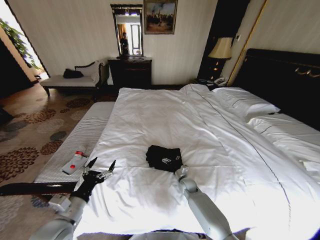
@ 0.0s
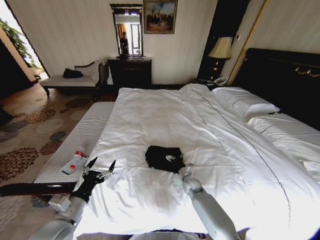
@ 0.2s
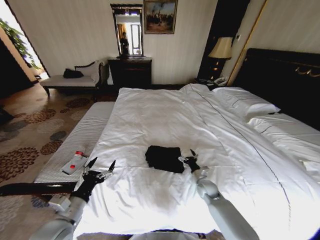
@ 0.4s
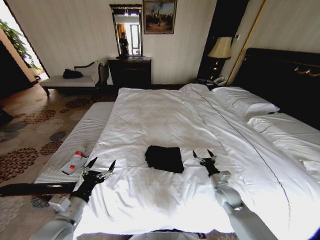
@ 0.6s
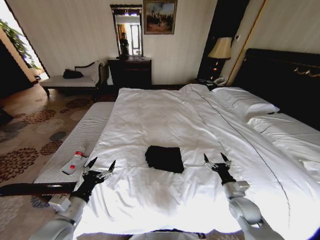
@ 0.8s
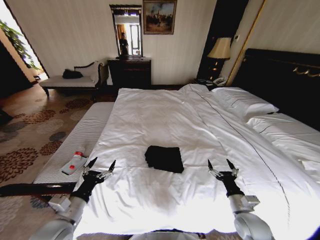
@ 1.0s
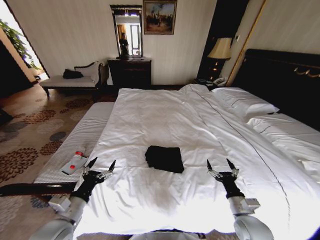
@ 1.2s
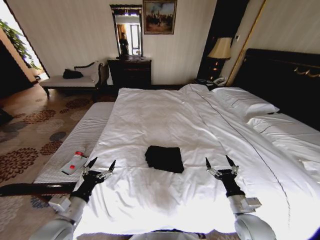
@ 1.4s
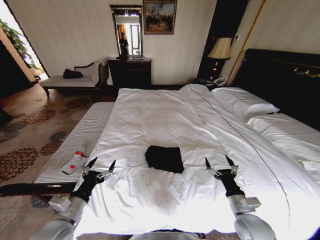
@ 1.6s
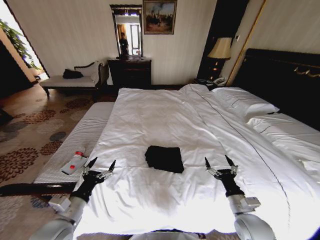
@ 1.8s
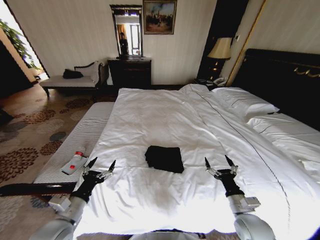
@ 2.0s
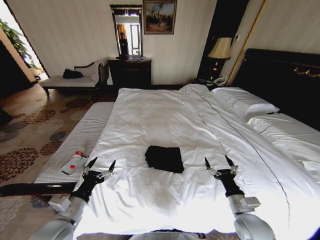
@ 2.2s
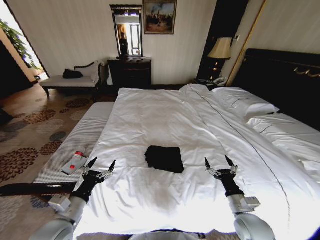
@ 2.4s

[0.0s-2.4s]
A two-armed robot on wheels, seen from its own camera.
Task of the whole recording: Fold the clothes on the bed.
0.0s to 1.2s: The right gripper goes about 30 cm backward, to the right and upward.
1.2s to 2.4s: There are only small adjustments of the grippers.

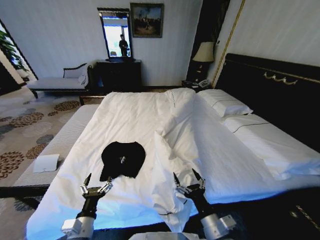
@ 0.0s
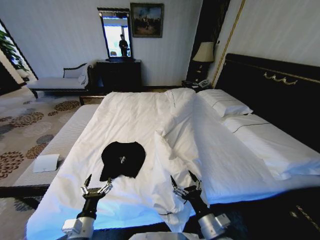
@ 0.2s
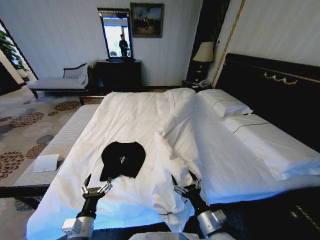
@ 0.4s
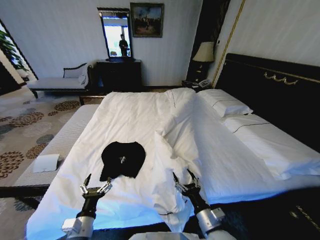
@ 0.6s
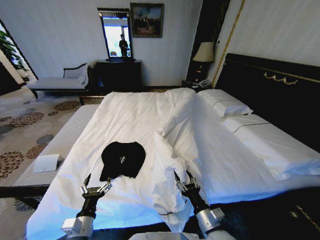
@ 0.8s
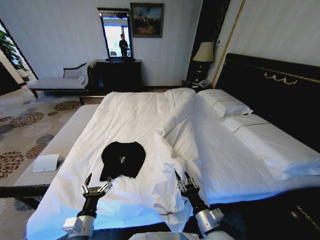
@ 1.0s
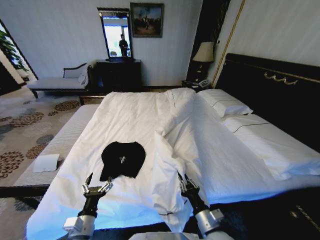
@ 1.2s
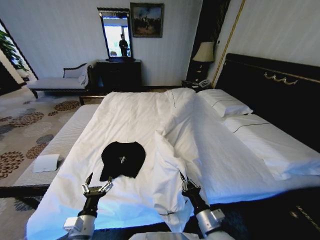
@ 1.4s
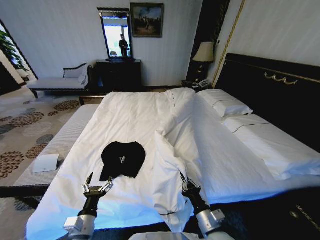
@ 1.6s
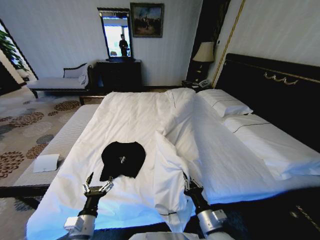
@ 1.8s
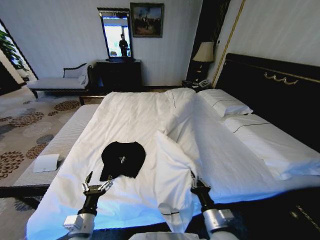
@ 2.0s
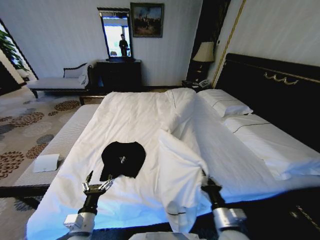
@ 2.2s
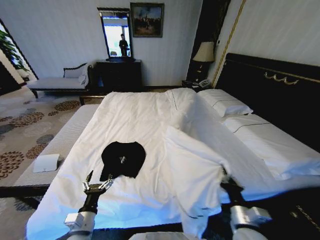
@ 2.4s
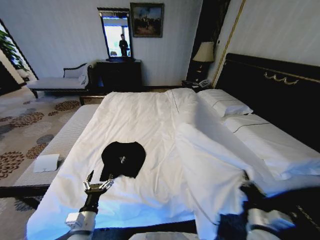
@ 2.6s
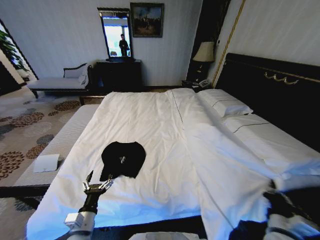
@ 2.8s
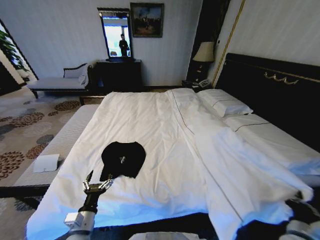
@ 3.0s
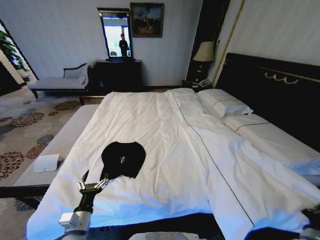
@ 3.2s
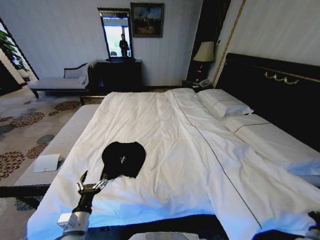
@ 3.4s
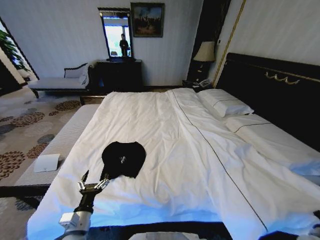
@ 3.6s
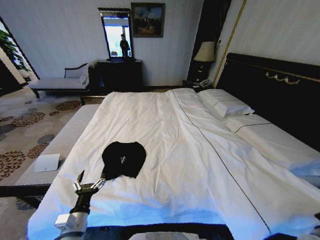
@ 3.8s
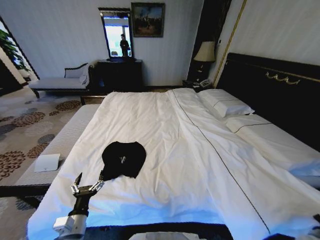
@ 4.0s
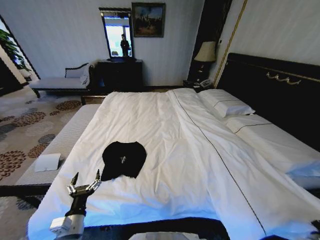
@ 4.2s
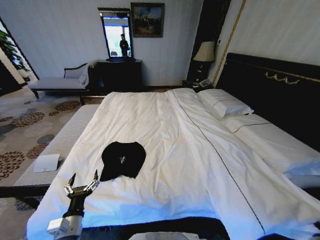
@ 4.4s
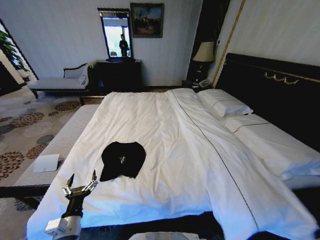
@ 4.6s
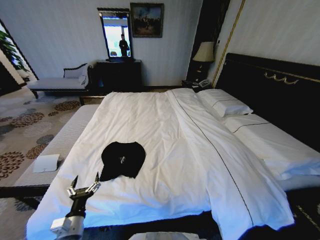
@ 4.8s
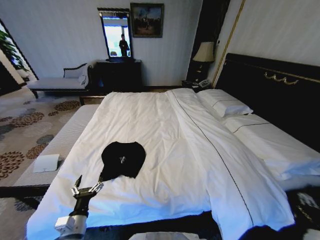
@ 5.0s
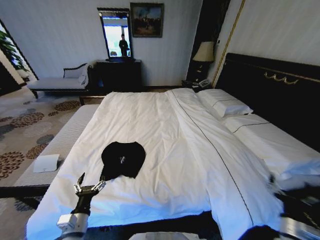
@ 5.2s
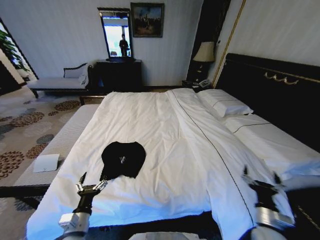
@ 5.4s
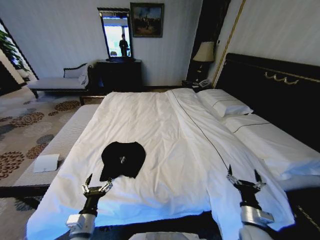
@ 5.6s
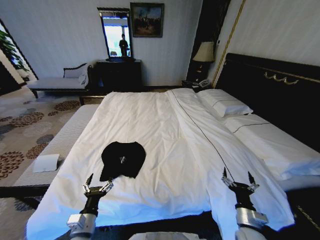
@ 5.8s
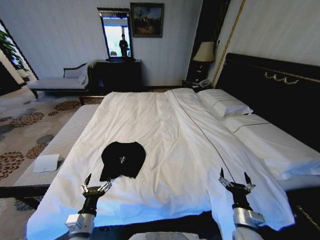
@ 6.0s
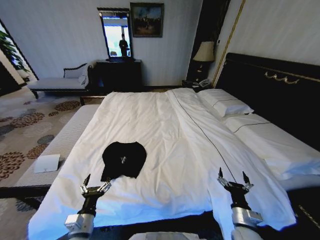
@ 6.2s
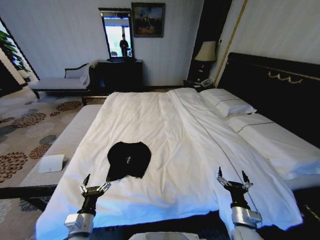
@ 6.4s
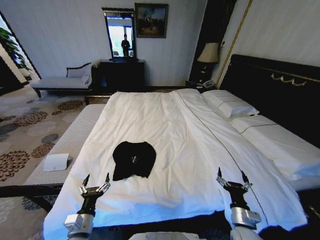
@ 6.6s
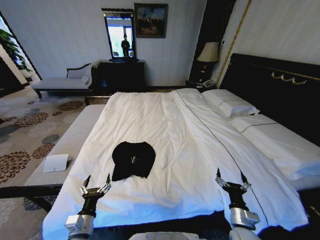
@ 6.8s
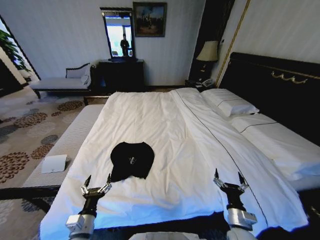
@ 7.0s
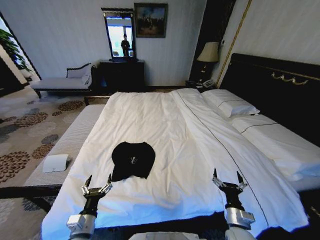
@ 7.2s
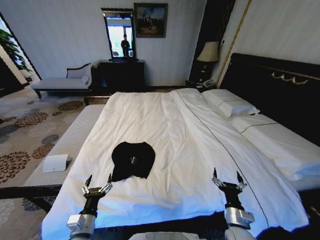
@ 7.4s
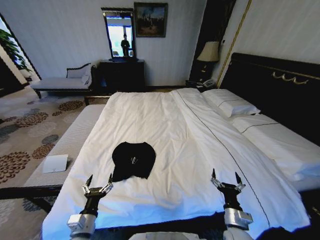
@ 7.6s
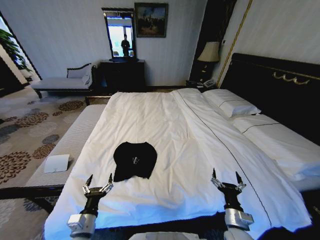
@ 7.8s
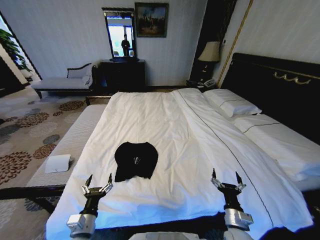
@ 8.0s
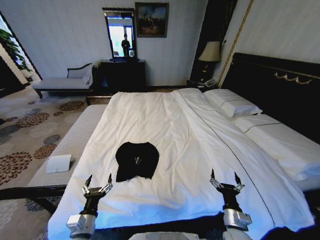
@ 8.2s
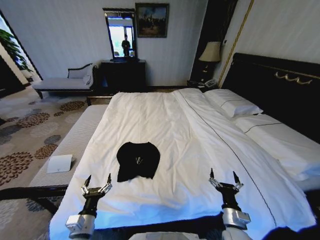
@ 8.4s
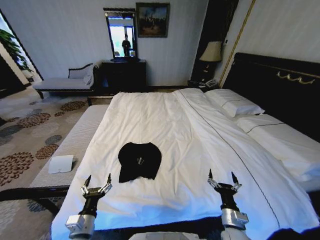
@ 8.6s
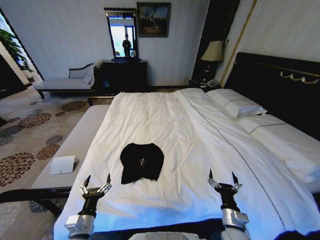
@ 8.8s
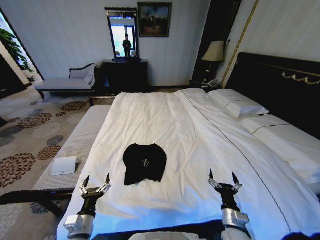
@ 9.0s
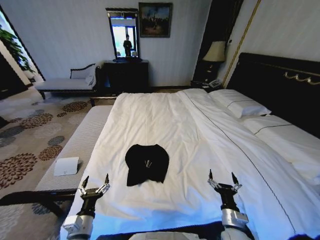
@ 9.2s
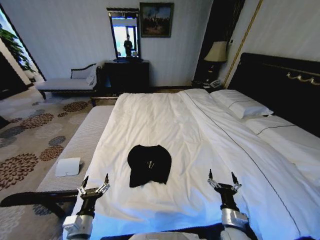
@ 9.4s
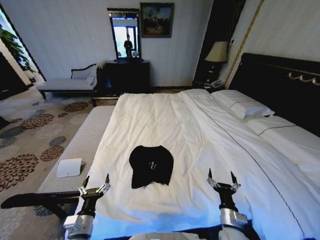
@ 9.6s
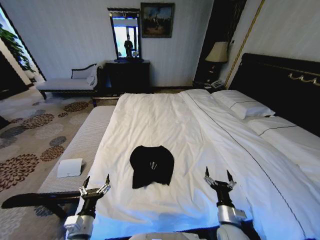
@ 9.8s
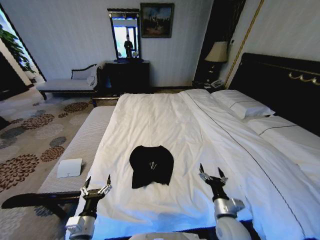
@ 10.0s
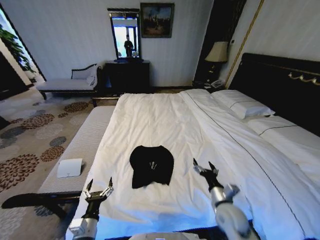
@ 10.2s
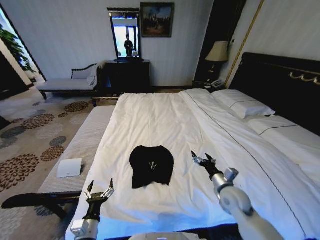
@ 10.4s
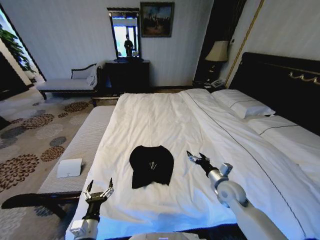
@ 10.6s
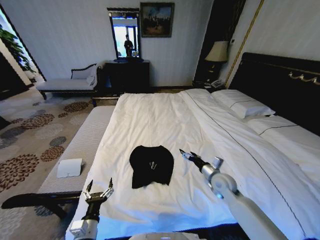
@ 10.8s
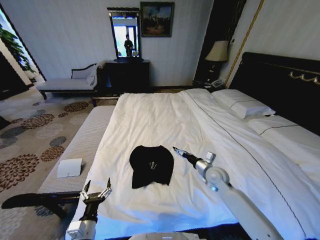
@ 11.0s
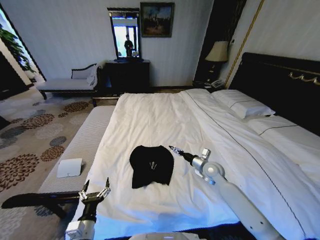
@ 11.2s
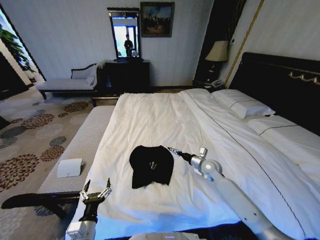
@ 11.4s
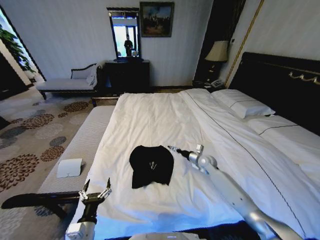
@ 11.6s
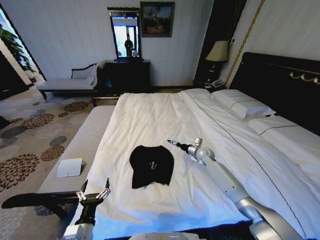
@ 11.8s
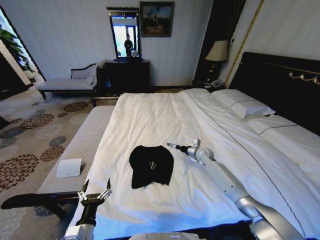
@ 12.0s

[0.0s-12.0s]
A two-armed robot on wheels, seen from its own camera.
Task of the whole recording: Fold the clothes on the bed.
0.0s to 1.6s: The right gripper closes its fingers.
1.6s to 3.0s: The right gripper goes roughly 25 cm to the right.
3.0s to 4.4s: The right gripper shifts roughly 15 cm to the right and downward.
4.4s to 6.0s: The right gripper shifts roughly 25 cm to the left, and opens its fingers.
9.0s to 10.4s: The right gripper shifts about 15 cm forward and upward.
10.4s to 12.0s: The right gripper is displaced forward by about 25 cm.

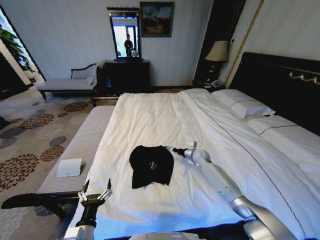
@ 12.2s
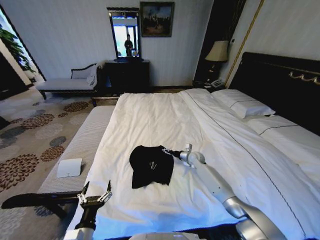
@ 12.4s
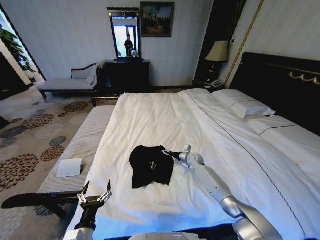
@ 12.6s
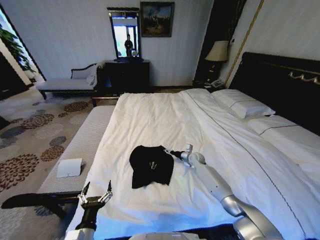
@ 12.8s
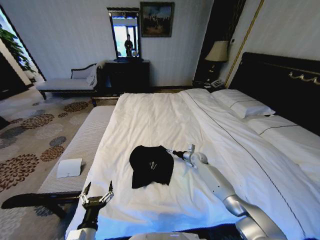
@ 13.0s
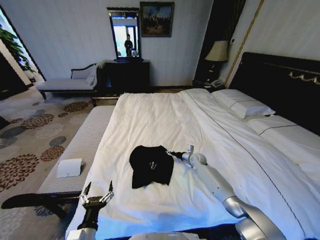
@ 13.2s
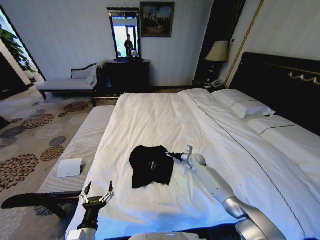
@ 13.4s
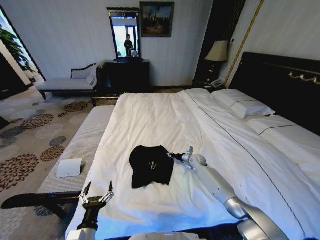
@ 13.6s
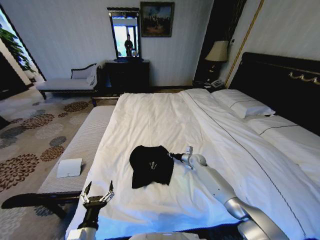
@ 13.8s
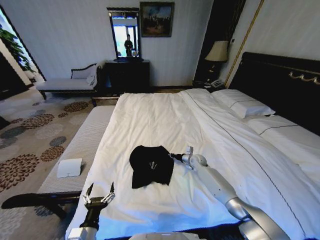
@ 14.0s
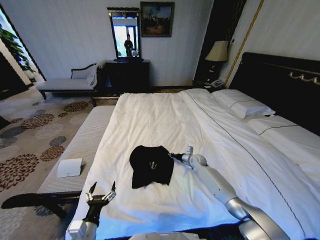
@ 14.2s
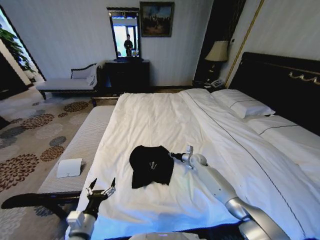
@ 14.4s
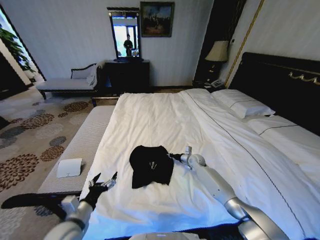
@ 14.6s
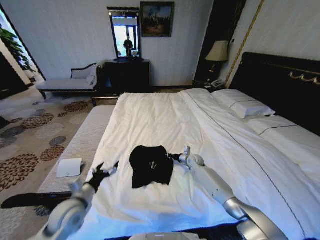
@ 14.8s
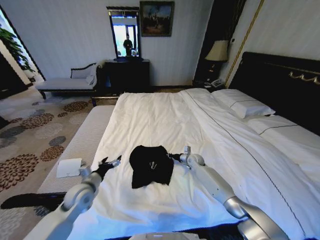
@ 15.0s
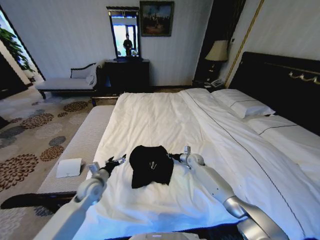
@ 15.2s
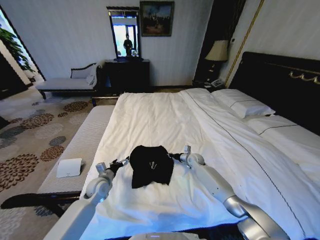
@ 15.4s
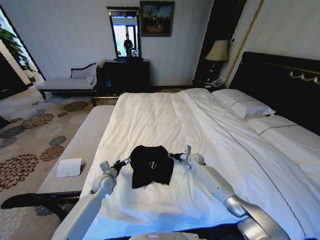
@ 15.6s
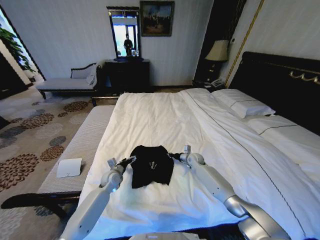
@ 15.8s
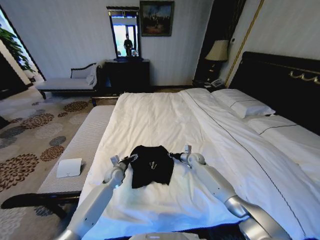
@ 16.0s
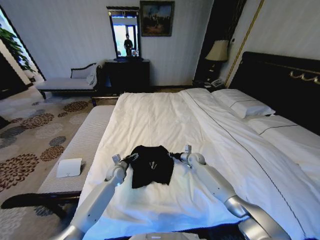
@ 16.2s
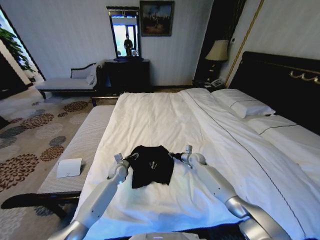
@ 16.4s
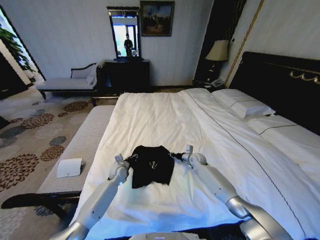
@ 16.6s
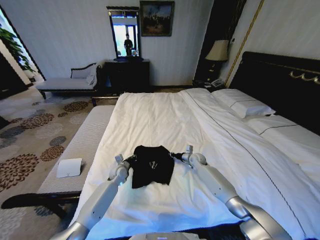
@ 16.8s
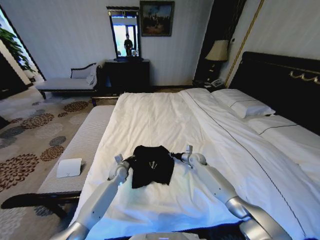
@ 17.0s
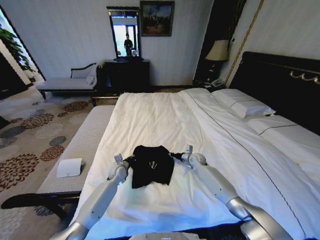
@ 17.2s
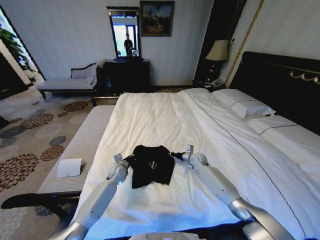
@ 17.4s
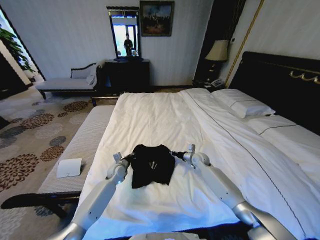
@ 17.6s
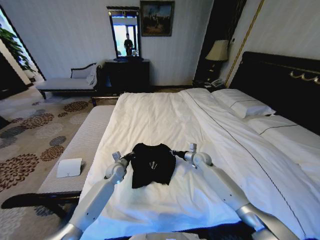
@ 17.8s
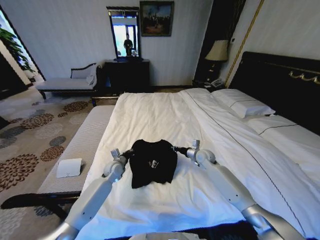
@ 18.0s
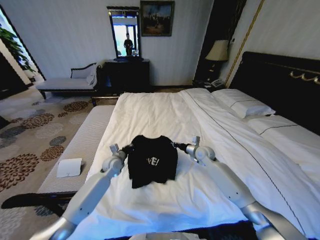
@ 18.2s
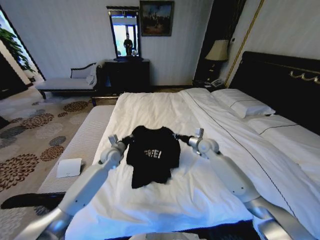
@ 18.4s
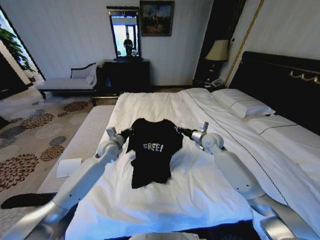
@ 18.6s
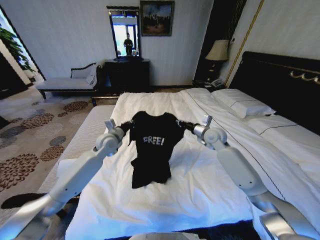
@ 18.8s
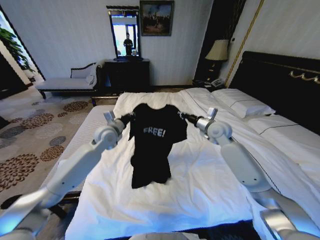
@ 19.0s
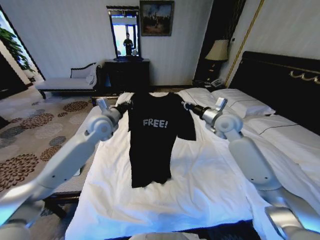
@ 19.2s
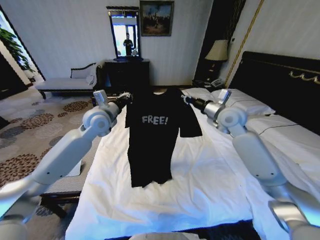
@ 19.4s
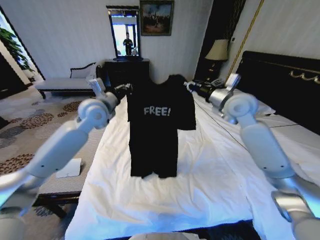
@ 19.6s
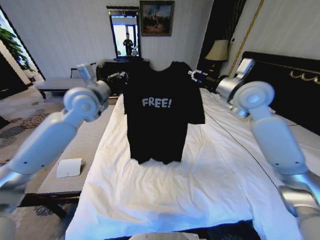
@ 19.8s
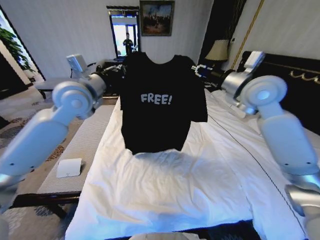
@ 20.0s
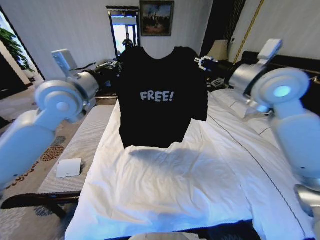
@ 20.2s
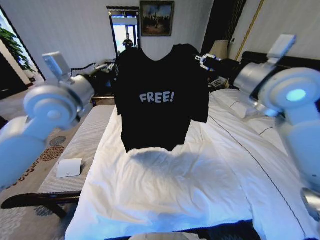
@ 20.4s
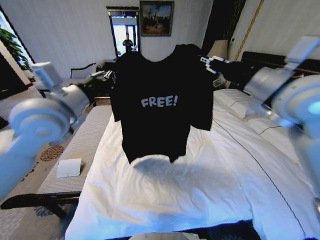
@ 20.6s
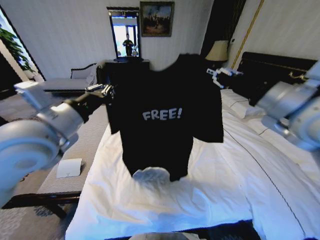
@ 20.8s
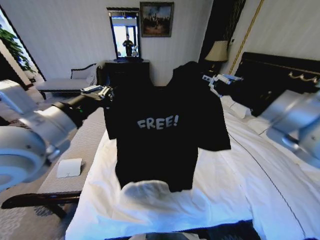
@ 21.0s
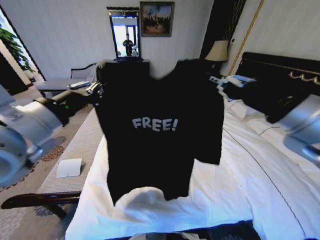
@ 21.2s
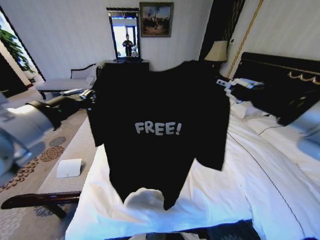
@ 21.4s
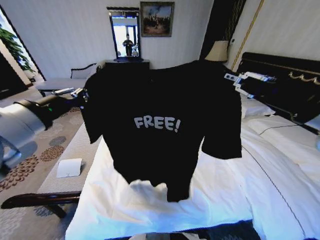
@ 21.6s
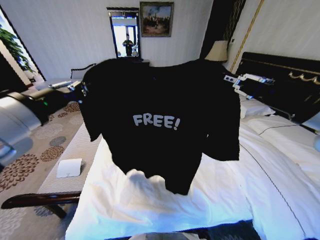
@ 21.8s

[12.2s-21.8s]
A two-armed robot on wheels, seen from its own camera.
Task of the whole recording: Fold the clothes on the bed.
12.2s to 13.8s: The right gripper closes its fingers.
13.8s to 15.4s: The left gripper goes some 25 cm forward.
15.4s to 17.0s: The left gripper goes about 10 cm forward and to the right, and closes its fingers.
17.0s to 18.6s: Both grippers move upward, some 20 cm.
18.6s to 20.2s: Both grippers move upward, some 30 cm.
20.2s to 21.8s: The two grippers go approximately 20 cm backward.
